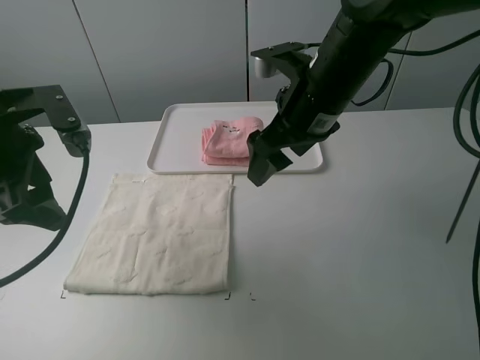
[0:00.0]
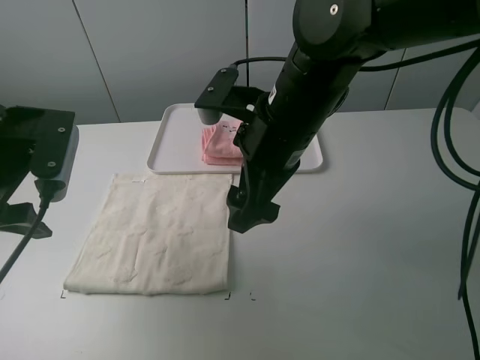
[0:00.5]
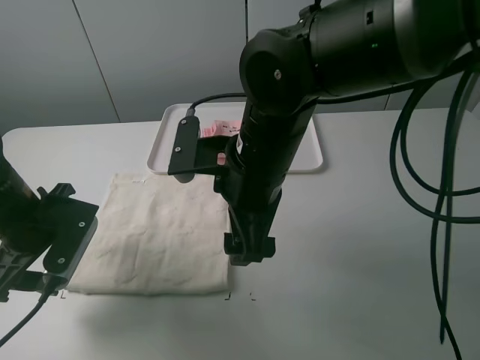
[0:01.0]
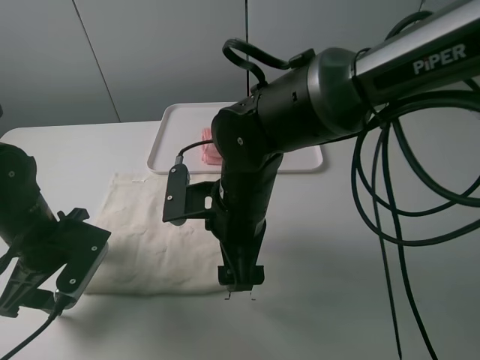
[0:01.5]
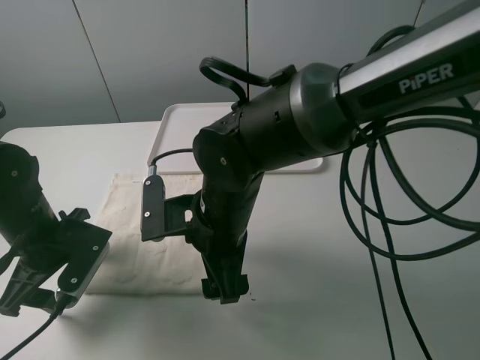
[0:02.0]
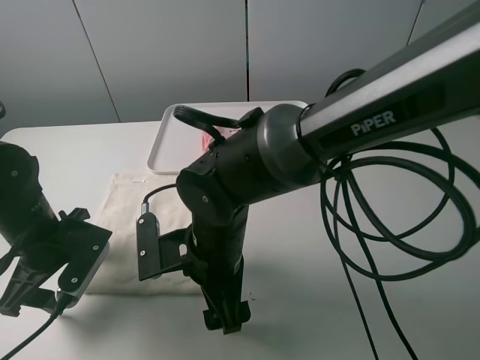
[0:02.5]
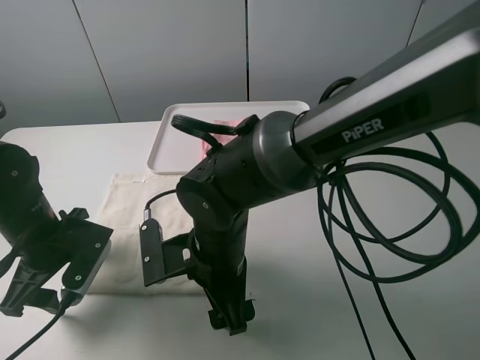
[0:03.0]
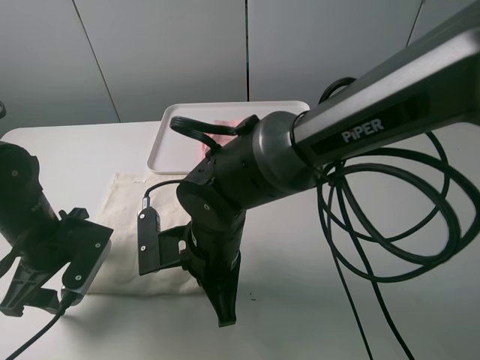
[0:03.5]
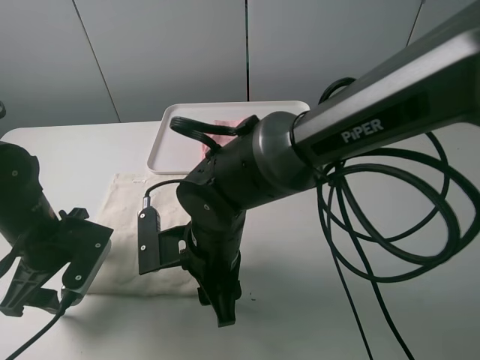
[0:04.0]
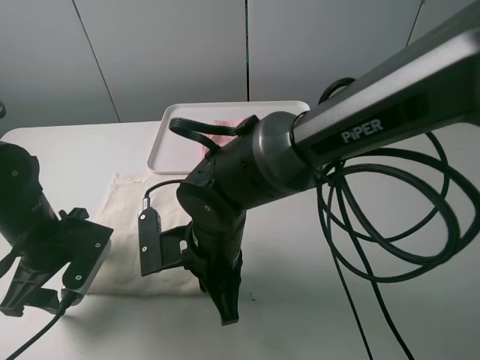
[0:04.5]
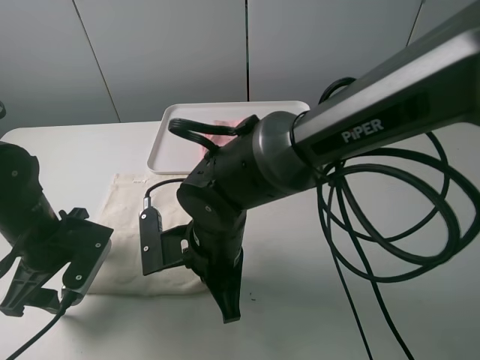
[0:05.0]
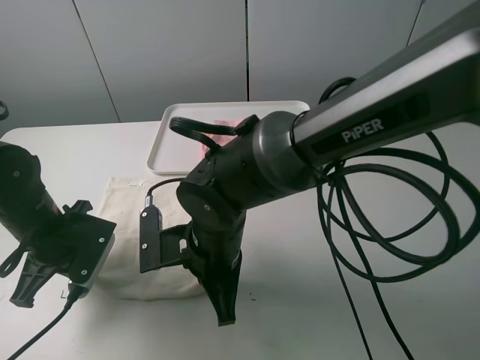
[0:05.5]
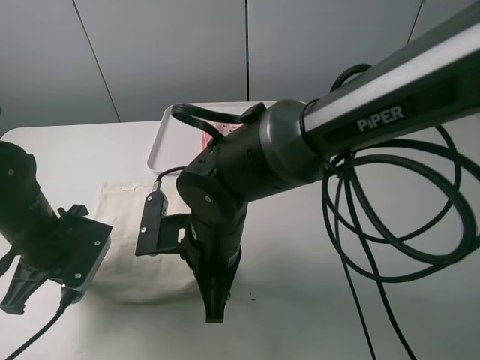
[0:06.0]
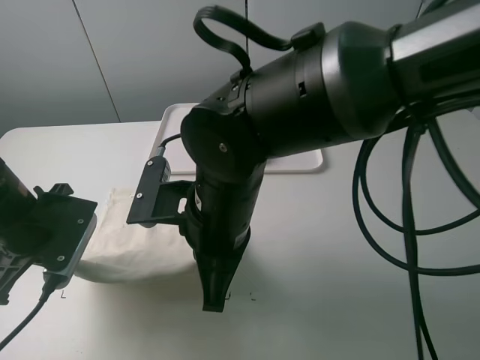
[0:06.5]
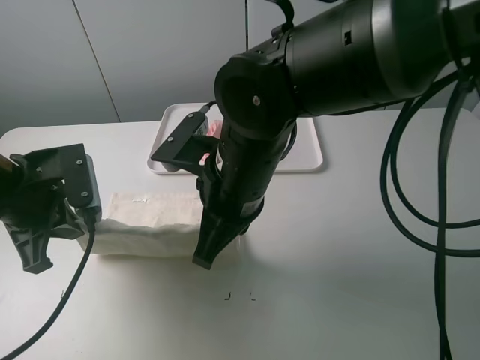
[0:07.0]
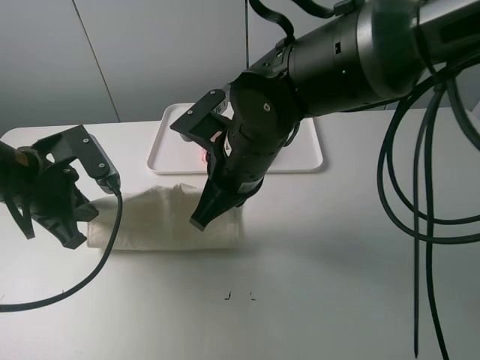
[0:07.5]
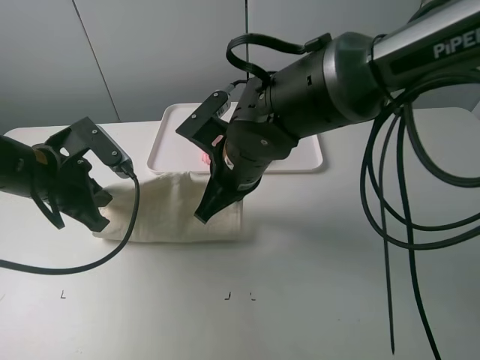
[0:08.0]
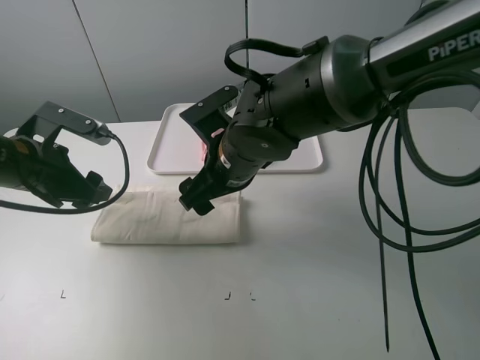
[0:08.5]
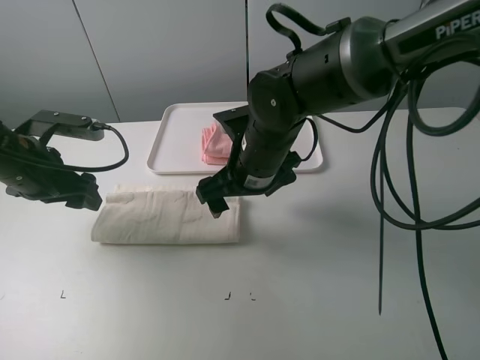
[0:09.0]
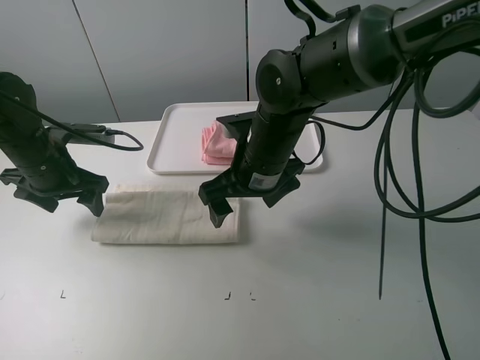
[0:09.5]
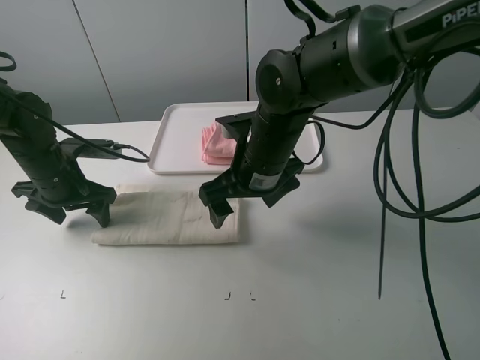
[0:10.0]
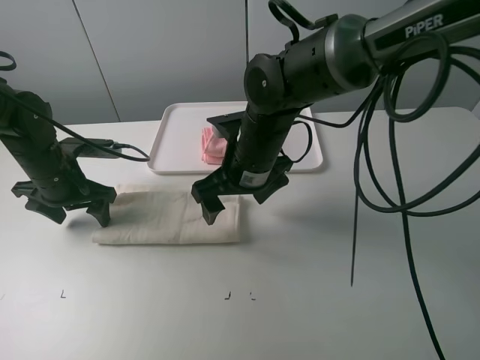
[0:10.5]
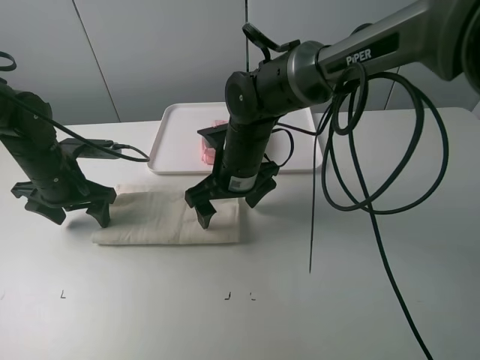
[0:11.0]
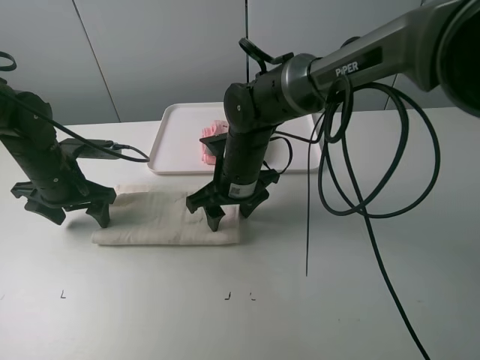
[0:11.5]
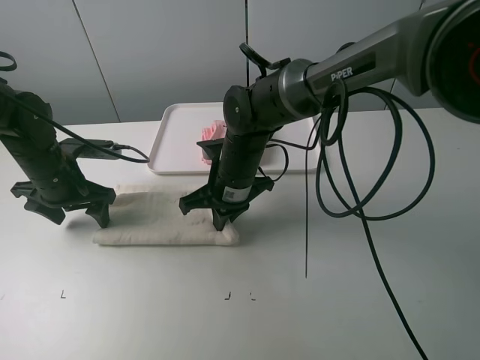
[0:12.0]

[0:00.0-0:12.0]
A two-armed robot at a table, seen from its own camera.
Task of the whole recording: fold one of the towels by two grippers and place it on the tray,then fold another towel by two grippers and place it on the folded towel.
Step, 0:00.0 to 0:05.5: Grasp the white towel with the left gripper.
Step, 0:06.0 to 0:08.5: Fold the white towel upwards with the left gripper.
Step, 0:09.0 to 0:10.0: Press the white towel with the left gripper.
0:00.0 to 0:02.0: The left gripper travels downward by some 15 cm, while the right gripper travels to the left, downward and backward by about 15 cm.
0:02.0 to 0:04.0: The right gripper closes up.
0:04.0 to 0:06.0: The right gripper closes; the left gripper closes up.
0:06.0 to 0:08.0: The right gripper is displaced forward by roughly 10 cm. The left gripper is displaced upward by approximately 5 cm.
0:08.0 to 0:10.0: The right gripper opens its fingers. The left gripper travels forward and downward by approximately 10 cm, and opens.
0:10.0 to 0:12.0: The right gripper travels downward by roughly 5 cm, and closes up.

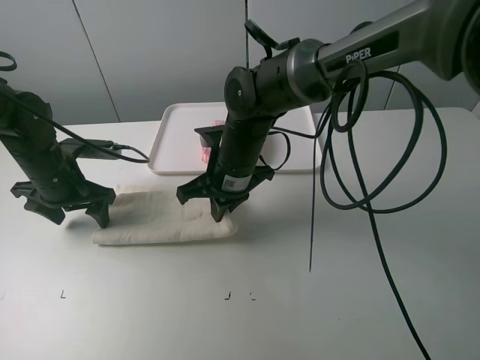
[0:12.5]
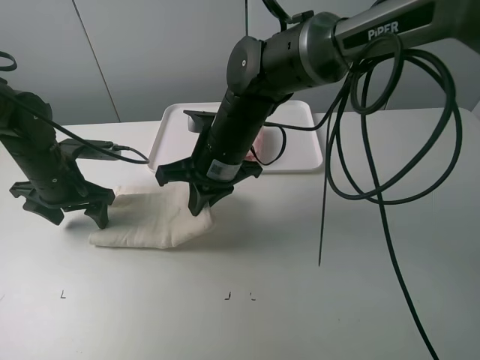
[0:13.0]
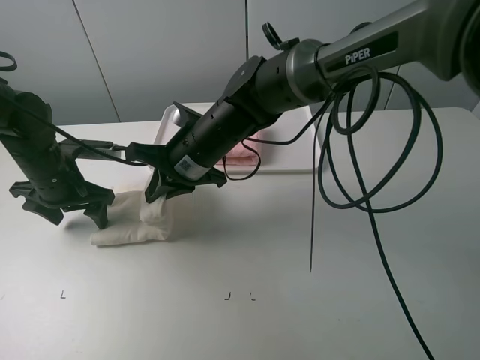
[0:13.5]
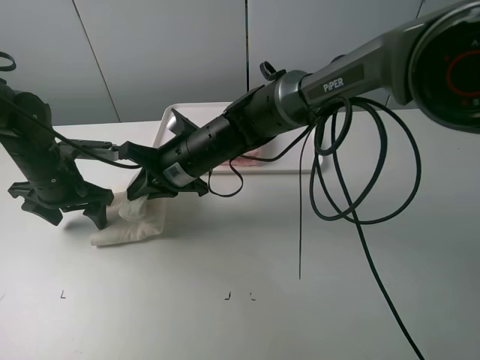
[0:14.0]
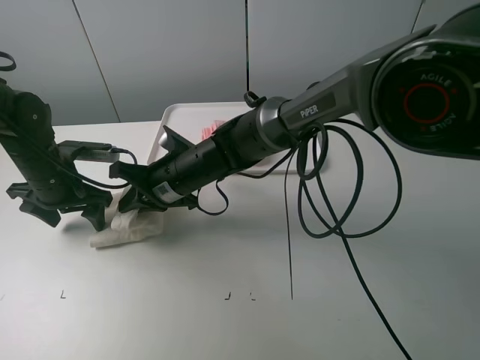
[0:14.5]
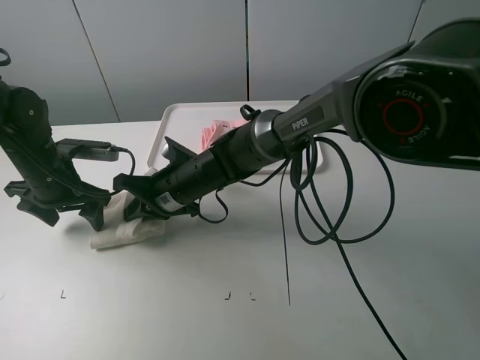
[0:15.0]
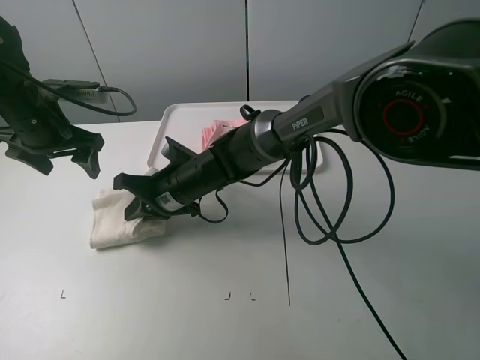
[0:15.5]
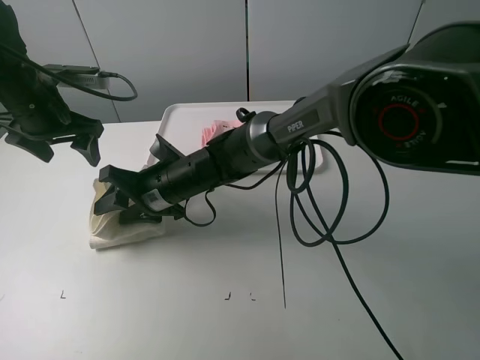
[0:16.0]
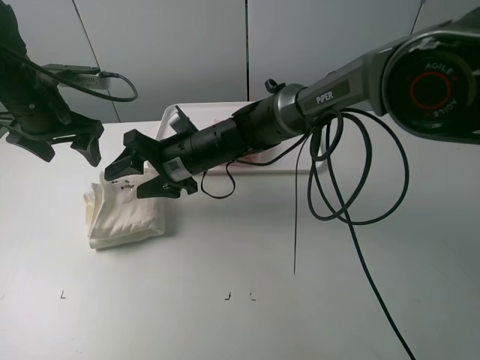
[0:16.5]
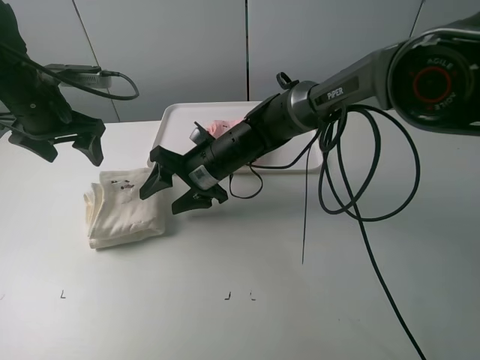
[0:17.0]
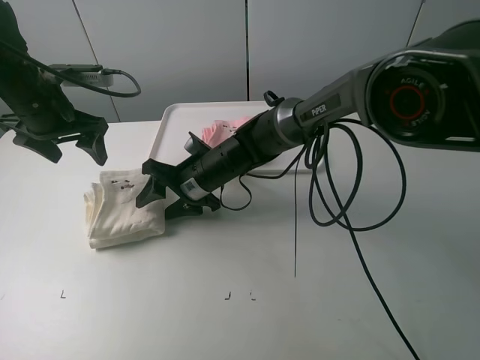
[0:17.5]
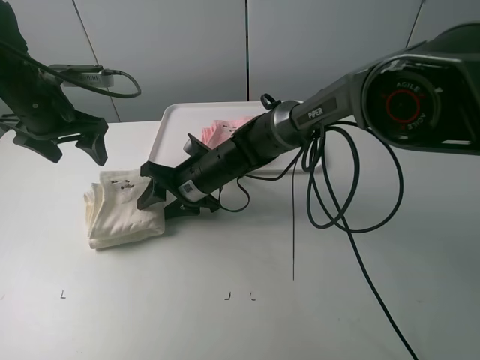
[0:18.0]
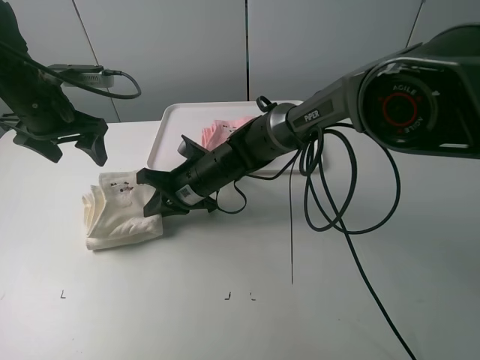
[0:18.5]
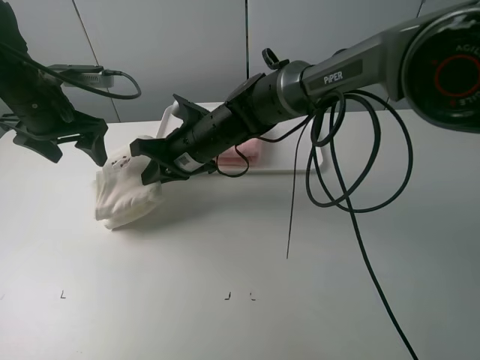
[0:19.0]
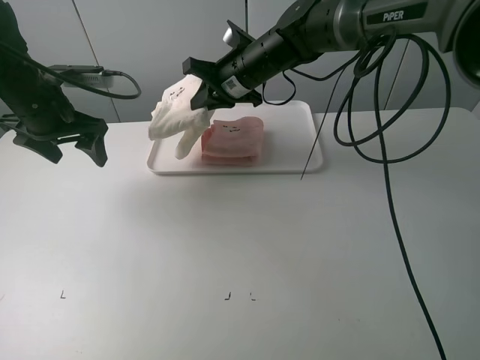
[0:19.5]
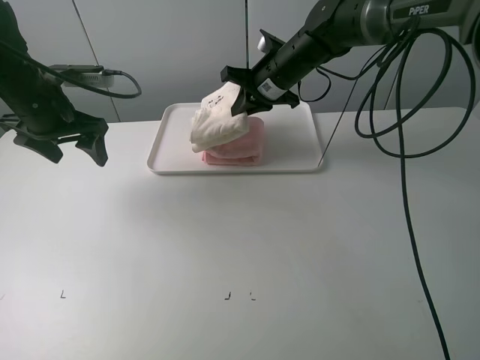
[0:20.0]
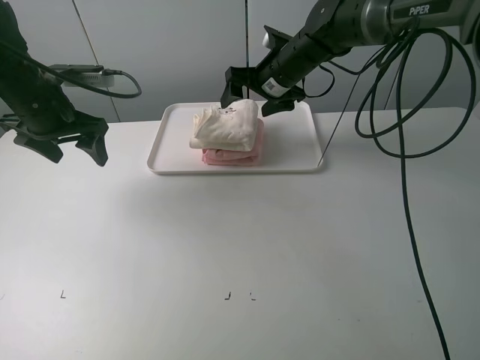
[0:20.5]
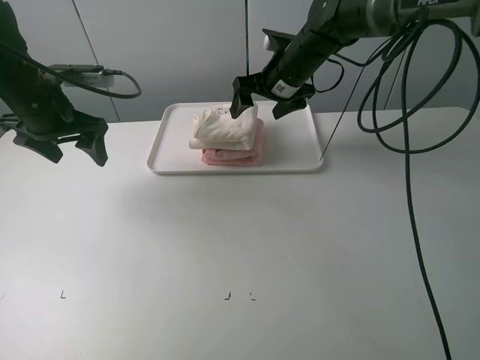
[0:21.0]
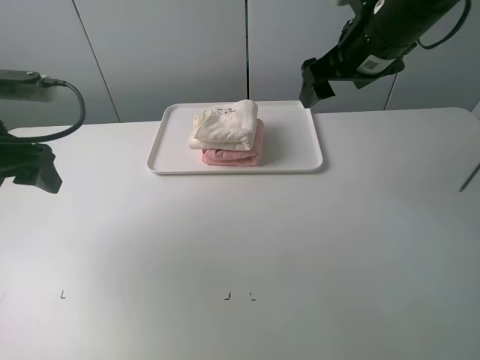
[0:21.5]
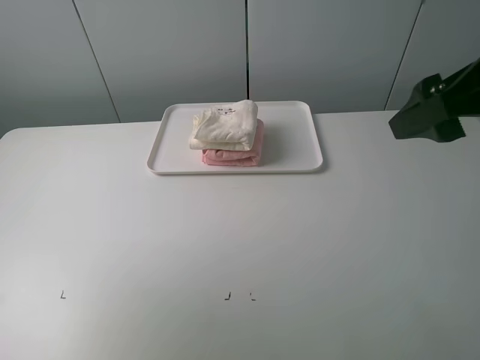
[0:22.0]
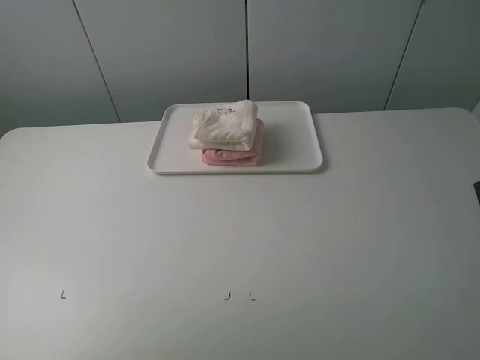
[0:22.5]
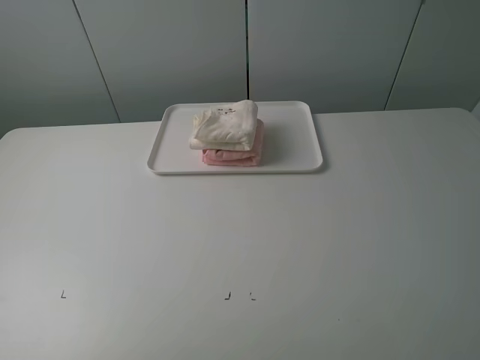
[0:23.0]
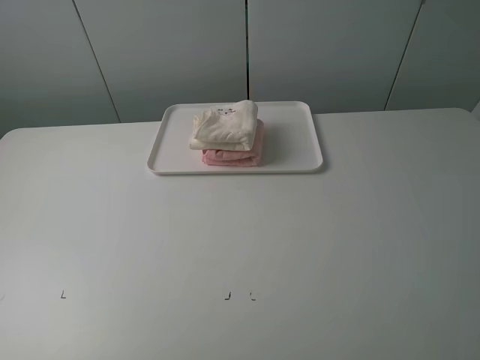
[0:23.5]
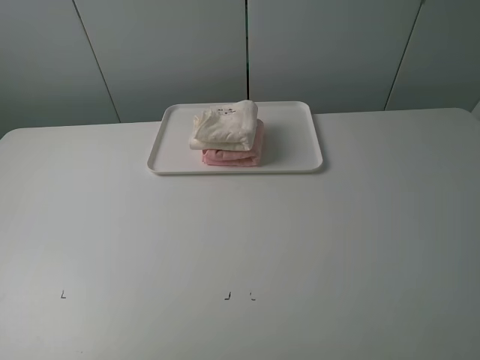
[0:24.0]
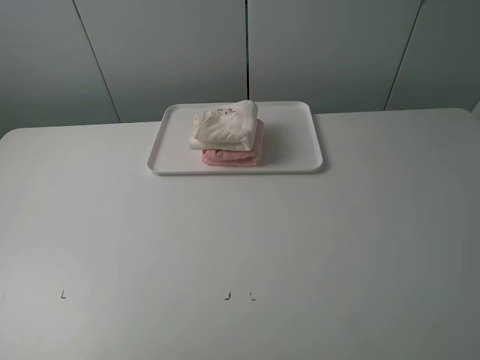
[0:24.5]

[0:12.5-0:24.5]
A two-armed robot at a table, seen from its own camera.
Task of the whole recording: fold one of the towels by two grippers and place it on the tray,then fold another towel by two grippers and place it on the folded towel.
Step, 0:12.5 to 0:16.5: Fold the white towel from right to left with right gripper.
Step, 0:17.0 to 0:18.5: Grasp the white towel with the right gripper.
Step, 0:19.0 to 0:21.0: Place the white towel on the pink towel with the right gripper.
0:12.5 to 0:14.5: The right gripper heads to the left, covering about 5 cm.
0:14.5 to 0:16.5: The left gripper is displaced upward by approximately 10 cm. Meanwhile the right gripper opens up.
0:16.5 to 0:18.5: The right gripper travels downward by some 5 cm, and closes.
0:18.5 to 0:20.5: The right gripper shifts about 20 cm to the right, forward and upward, and opens up.
0:20.5 to 0:22.5: The right gripper is displaced backward and to the right by roughly 40 cm. Meanwhile the left gripper heads backward and upward, covering roughly 30 cm.

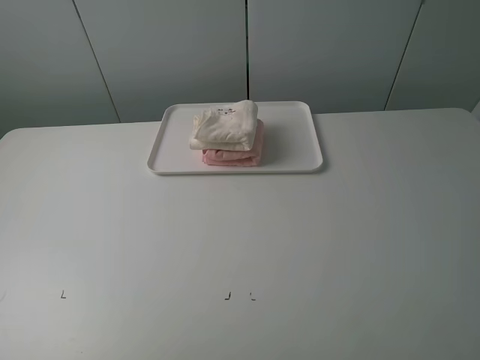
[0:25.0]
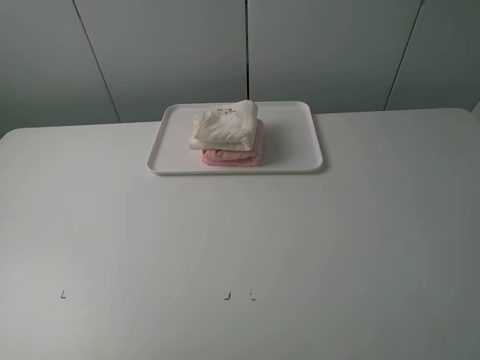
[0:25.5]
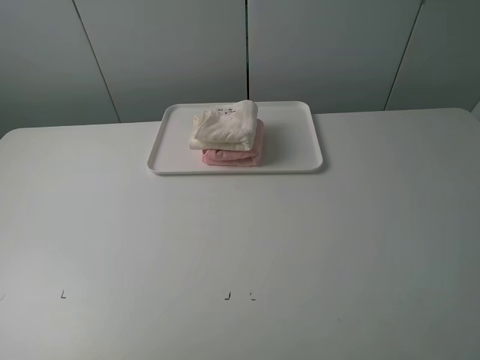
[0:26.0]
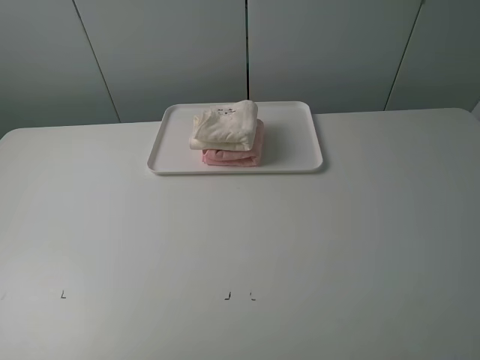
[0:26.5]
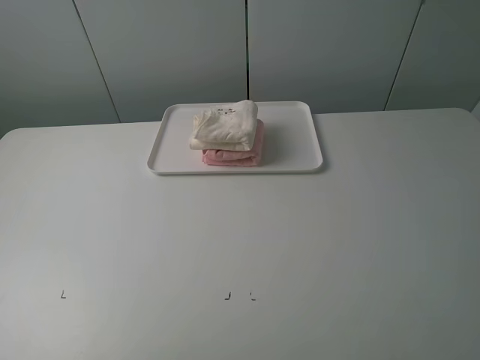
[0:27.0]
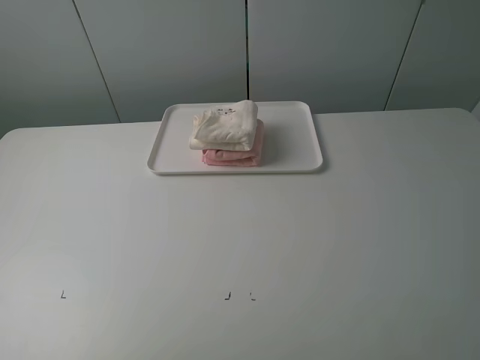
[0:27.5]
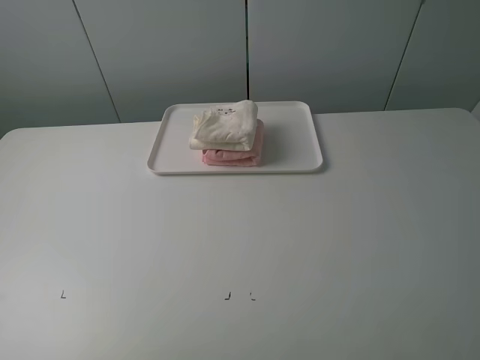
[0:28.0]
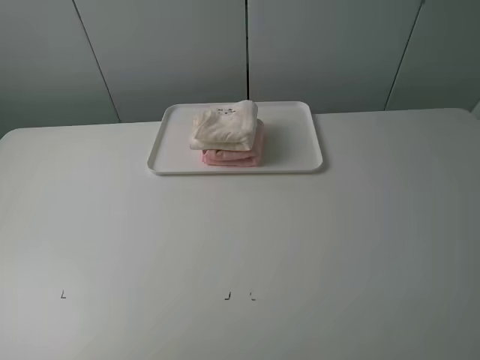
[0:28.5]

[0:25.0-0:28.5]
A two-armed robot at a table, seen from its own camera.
Task of the whole recording: fold one of the towels by two grippers and place it on the tray,then fold another towel by two grippers and place it on the folded towel.
0:27.0 to 0:28.5: Both grippers stay put.
